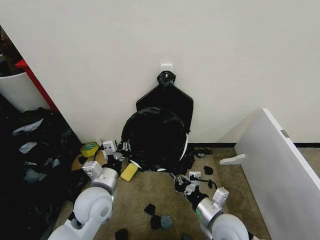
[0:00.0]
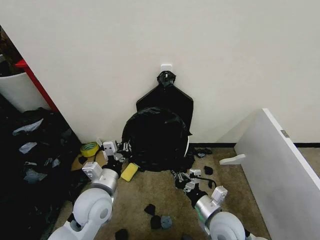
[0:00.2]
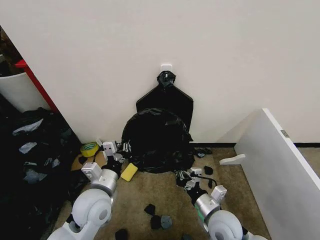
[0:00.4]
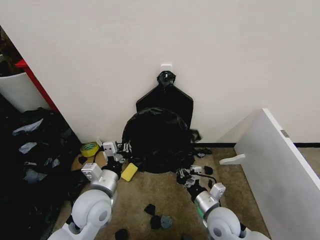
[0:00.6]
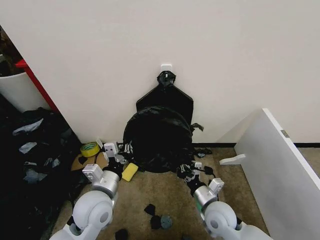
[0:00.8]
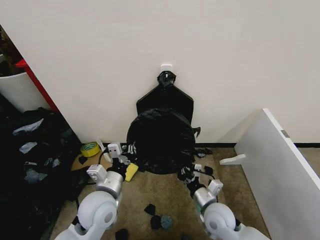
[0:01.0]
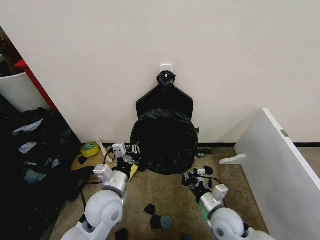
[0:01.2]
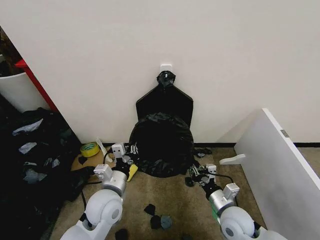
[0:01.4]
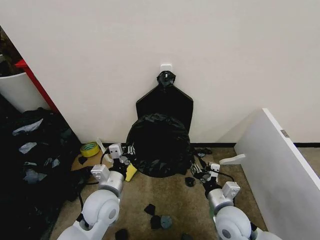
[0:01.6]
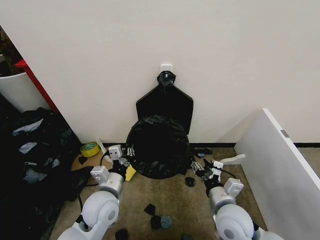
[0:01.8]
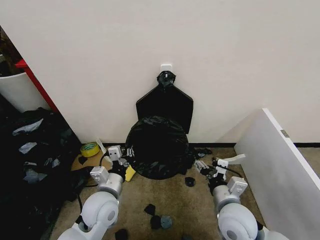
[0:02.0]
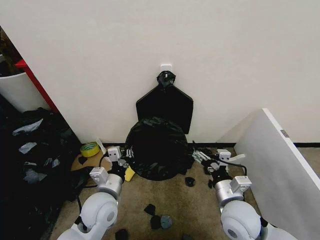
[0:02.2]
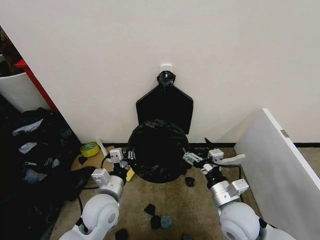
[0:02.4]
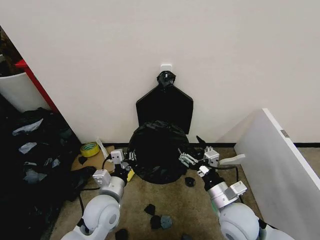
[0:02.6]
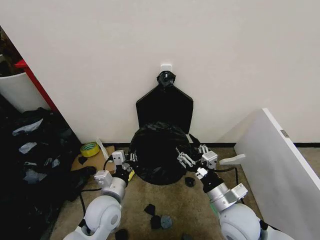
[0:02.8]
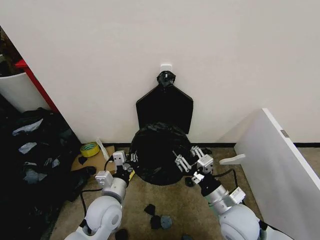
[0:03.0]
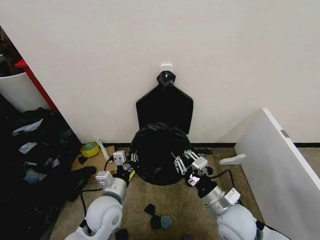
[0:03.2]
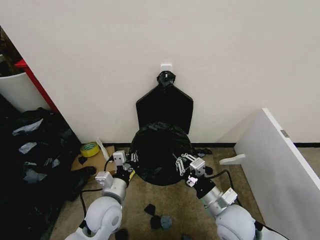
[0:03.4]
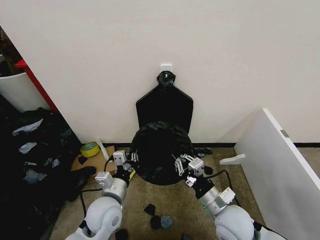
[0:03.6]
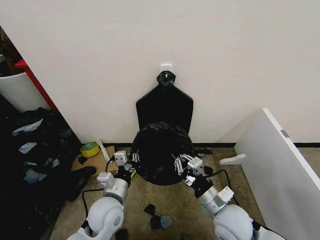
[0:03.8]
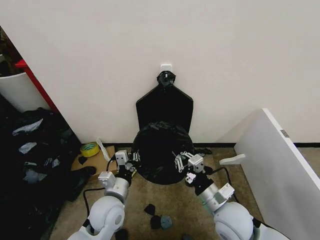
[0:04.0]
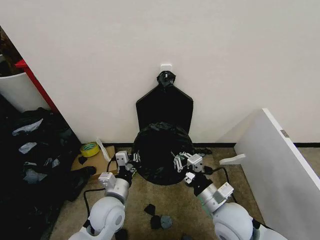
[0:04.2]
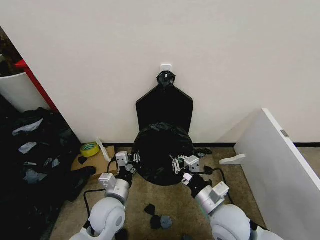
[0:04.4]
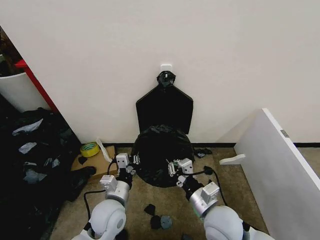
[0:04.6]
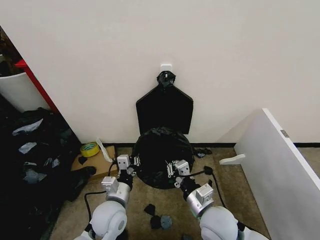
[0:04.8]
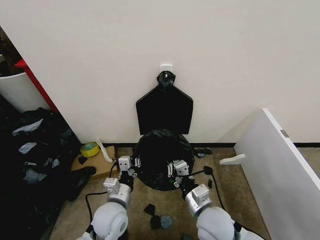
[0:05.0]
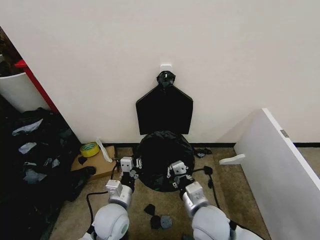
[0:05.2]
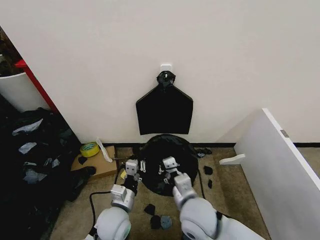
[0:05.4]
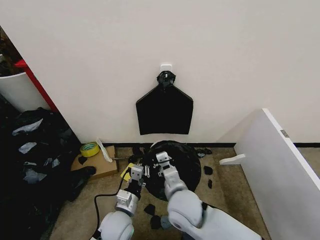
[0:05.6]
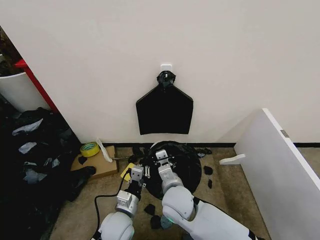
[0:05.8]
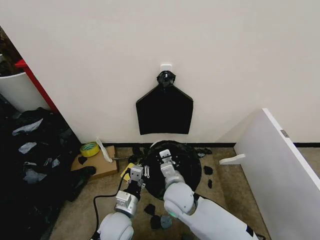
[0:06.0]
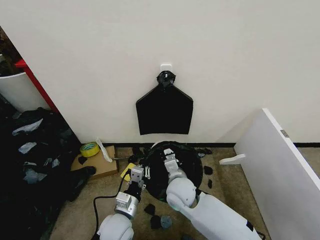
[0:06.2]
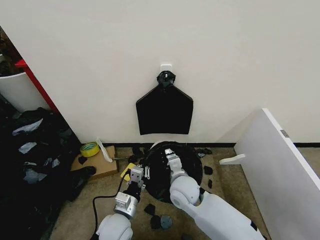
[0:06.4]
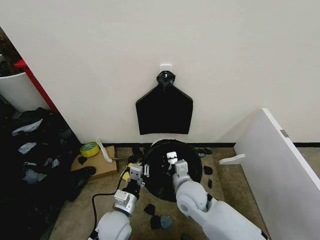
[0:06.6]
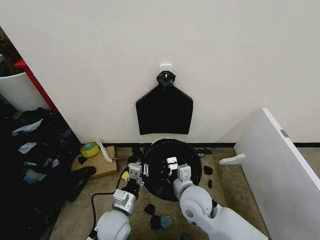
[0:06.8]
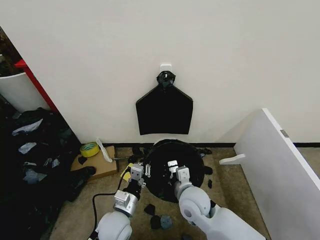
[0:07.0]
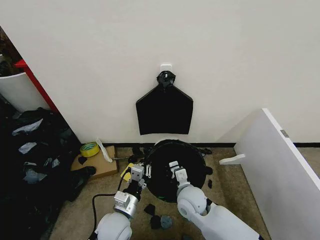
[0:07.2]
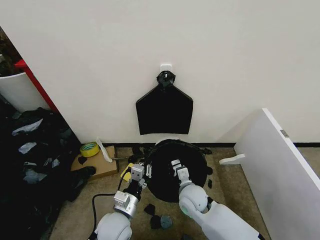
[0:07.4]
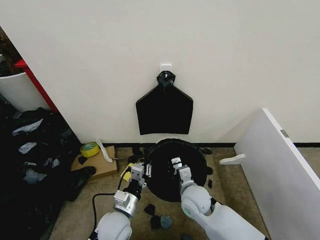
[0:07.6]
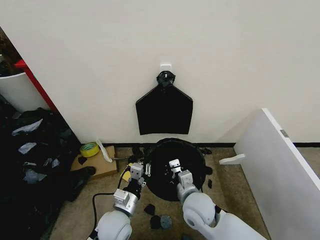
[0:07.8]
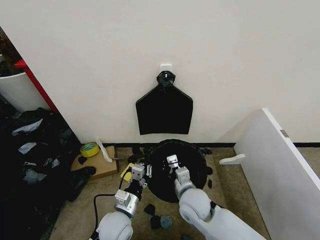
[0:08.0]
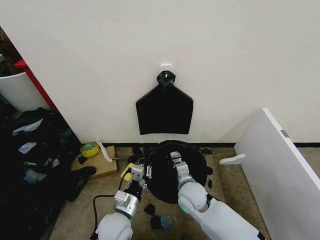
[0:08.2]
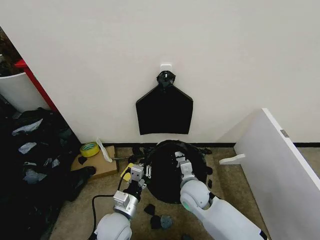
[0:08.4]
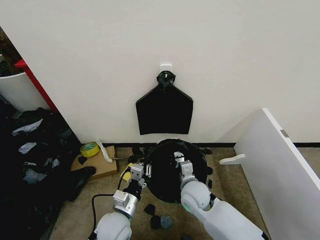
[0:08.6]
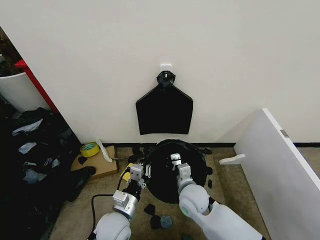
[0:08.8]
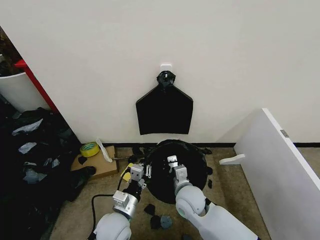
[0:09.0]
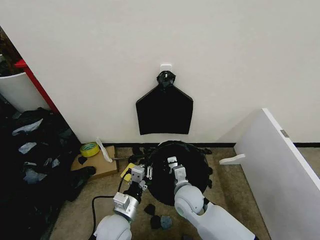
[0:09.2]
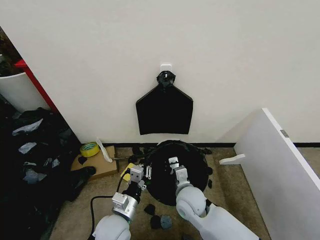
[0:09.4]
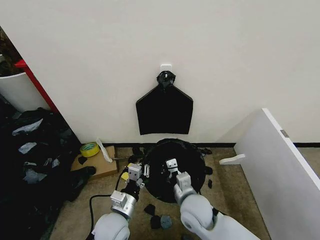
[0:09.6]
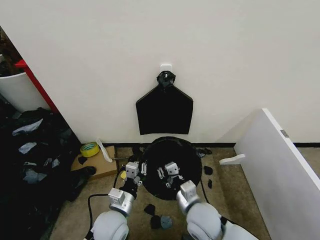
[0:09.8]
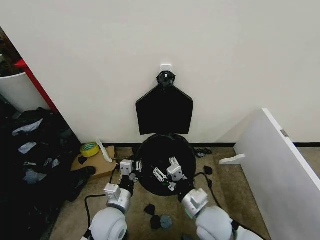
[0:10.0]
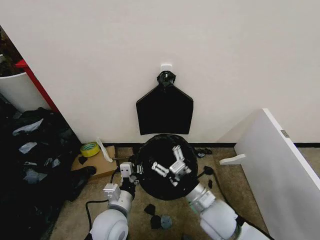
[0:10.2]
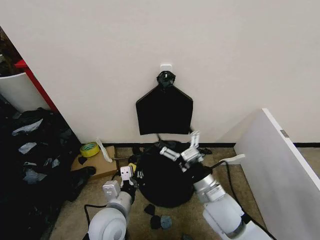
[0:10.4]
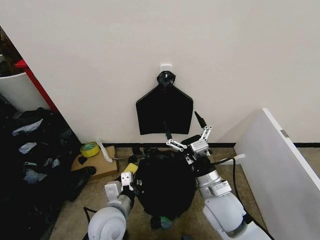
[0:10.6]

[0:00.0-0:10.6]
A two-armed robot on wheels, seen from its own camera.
Task of the whole recording: Place the garbage bag over the trash bin.
0:00.0 to 0:01.6: The right gripper opens up.
0:01.6 to 0:03.0: The right gripper goes roughly 5 cm upward, and opens and closes again.
0:03.0 to 0:04.6: The right gripper closes its fingers.
0:04.6 to 0:06.0: The left gripper ends up roughly 5 cm from where it was. The right gripper moves to the left and forward, roughly 15 cm.
0:06.0 to 0:07.6: The right gripper moves to the right, approximately 5 cm.
0:07.6 to 0:09.0: The grippers move only a little.
0:09.0 to 0:10.6: The right gripper moves upward, to the right and backward, approximately 10 cm, and opens its fingers. Meanwhile the left gripper is displaced upward by approximately 5 cm.

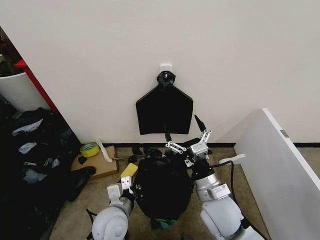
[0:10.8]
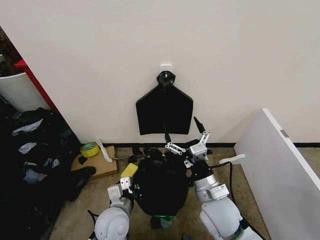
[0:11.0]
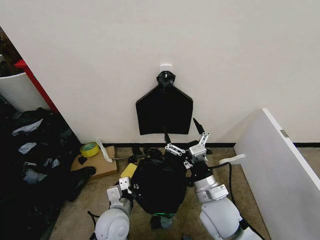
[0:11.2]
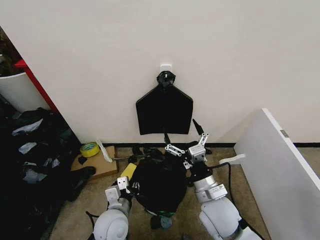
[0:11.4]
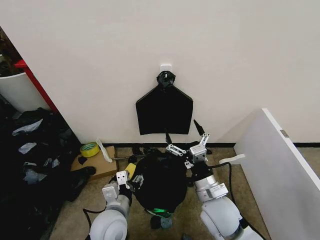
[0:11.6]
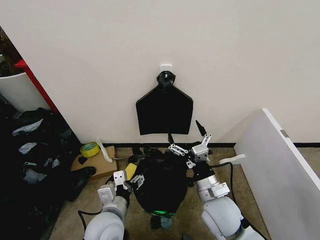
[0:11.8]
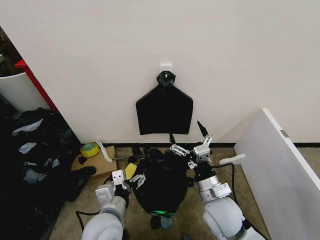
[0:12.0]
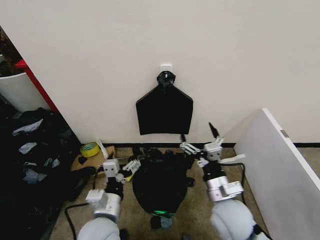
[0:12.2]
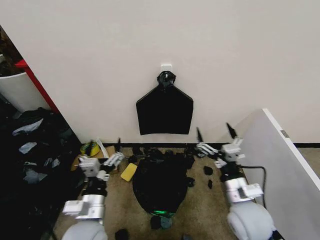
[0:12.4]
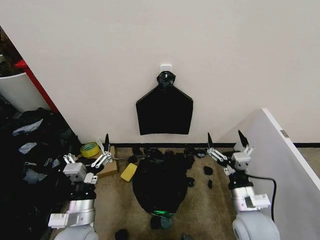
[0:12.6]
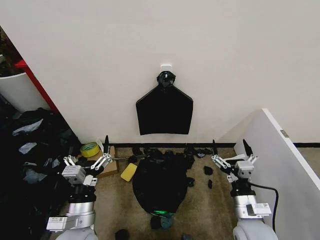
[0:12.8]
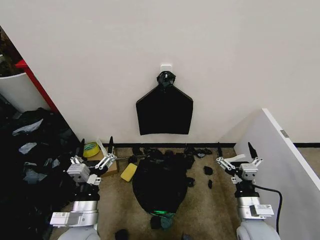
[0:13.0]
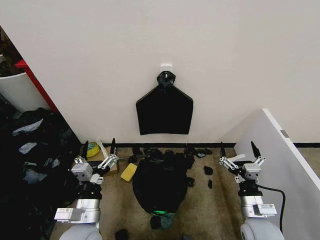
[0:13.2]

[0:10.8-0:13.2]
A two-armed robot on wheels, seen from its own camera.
Task of the whole recording: Place the garbage bag over the trash bin.
0:10.8 to 0:12.0: The left gripper ends up roughly 5 cm from where it was, and opens up.
0:12.0 to 0:13.2: The right gripper moves to the right and downward, approximately 15 cm; the left gripper travels to the left by about 5 cm.

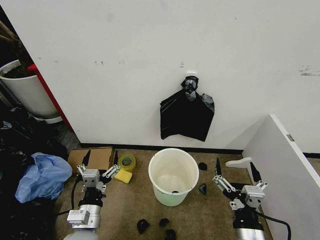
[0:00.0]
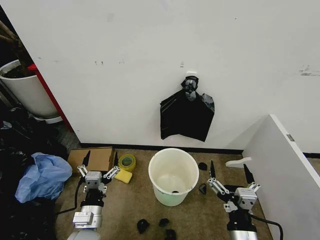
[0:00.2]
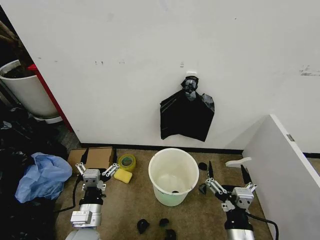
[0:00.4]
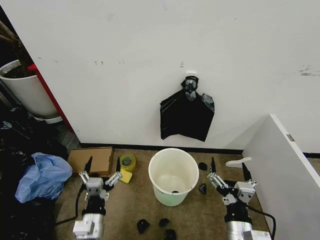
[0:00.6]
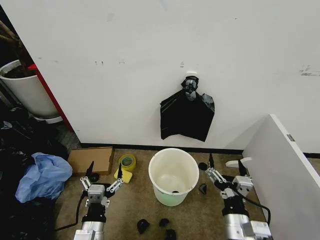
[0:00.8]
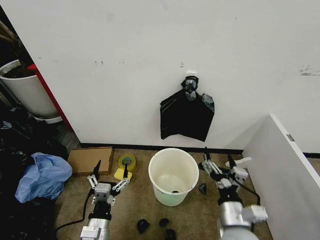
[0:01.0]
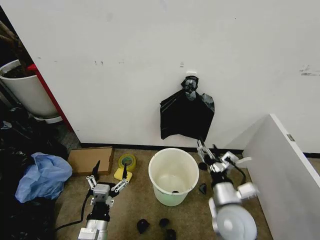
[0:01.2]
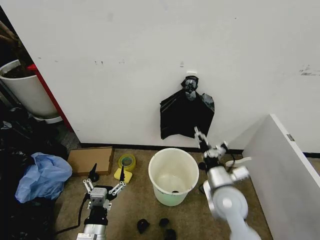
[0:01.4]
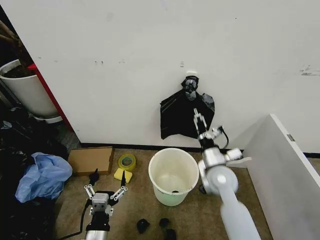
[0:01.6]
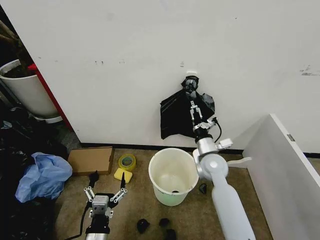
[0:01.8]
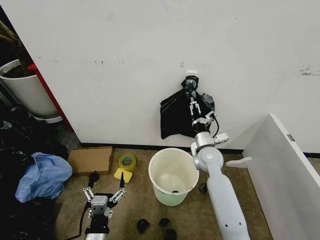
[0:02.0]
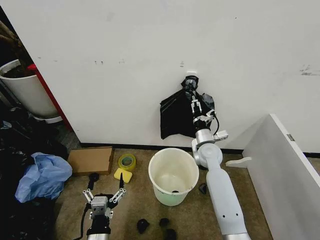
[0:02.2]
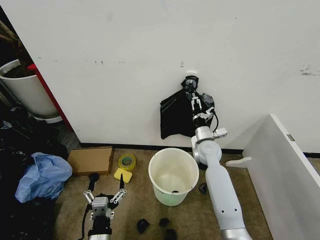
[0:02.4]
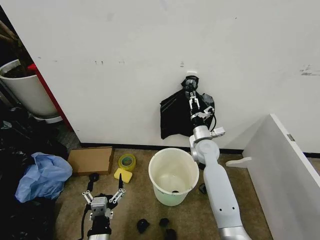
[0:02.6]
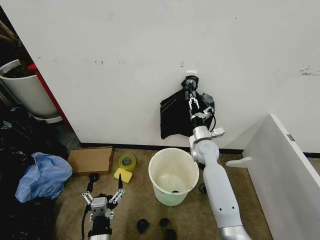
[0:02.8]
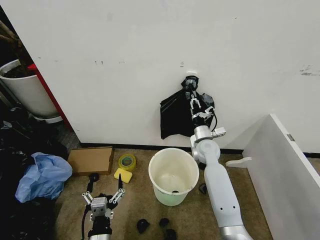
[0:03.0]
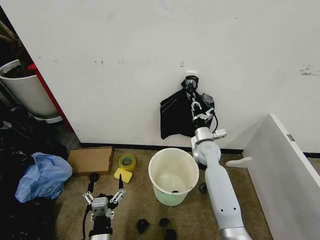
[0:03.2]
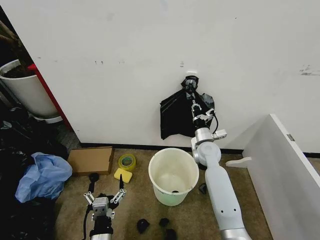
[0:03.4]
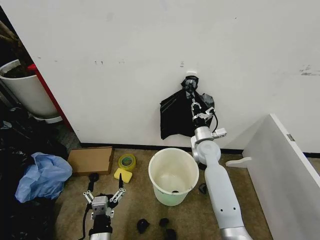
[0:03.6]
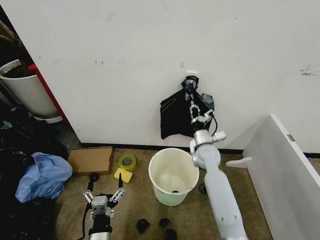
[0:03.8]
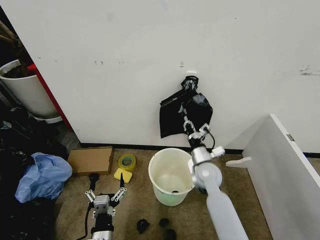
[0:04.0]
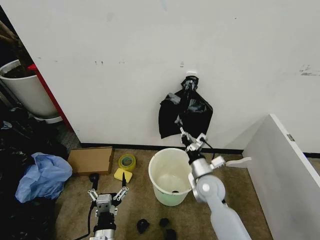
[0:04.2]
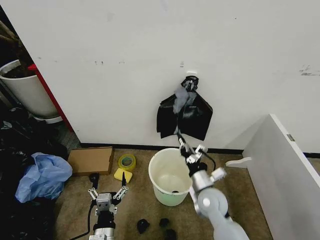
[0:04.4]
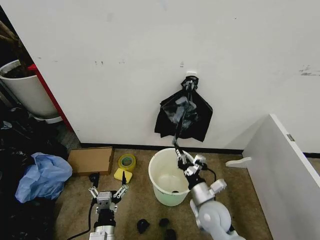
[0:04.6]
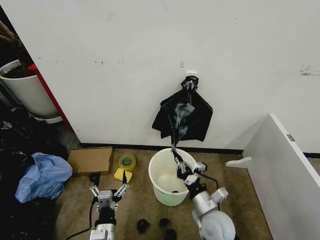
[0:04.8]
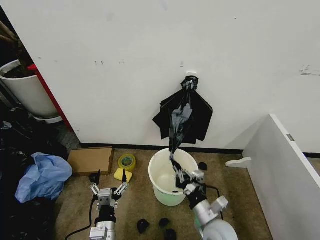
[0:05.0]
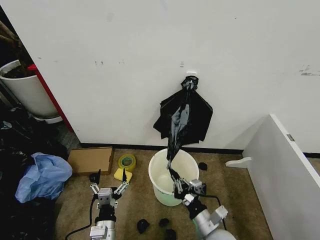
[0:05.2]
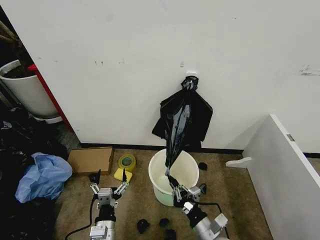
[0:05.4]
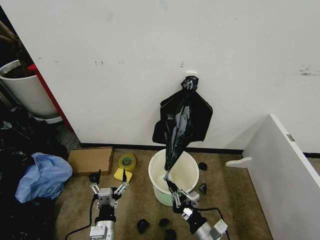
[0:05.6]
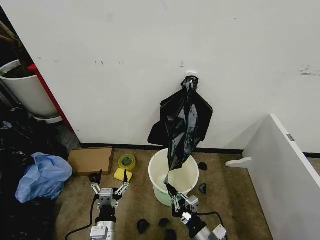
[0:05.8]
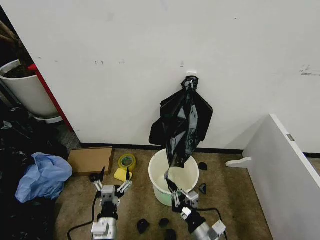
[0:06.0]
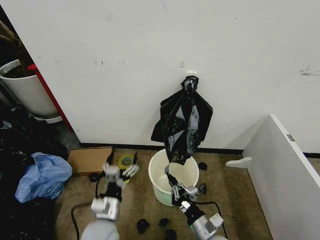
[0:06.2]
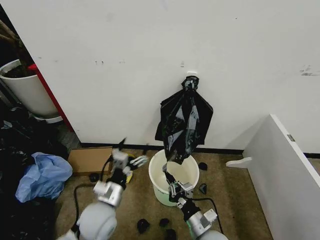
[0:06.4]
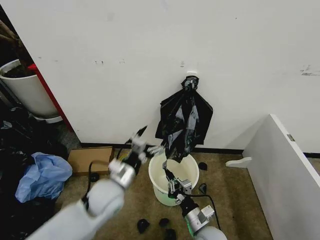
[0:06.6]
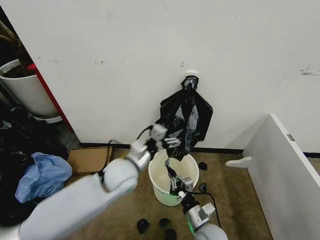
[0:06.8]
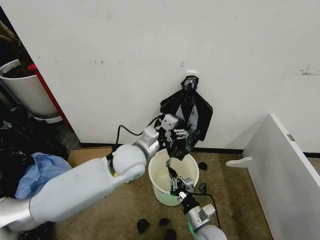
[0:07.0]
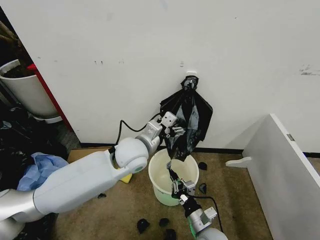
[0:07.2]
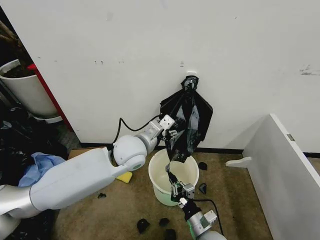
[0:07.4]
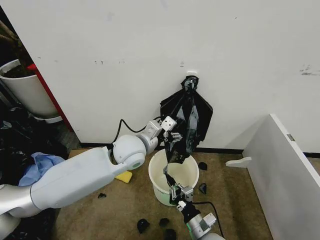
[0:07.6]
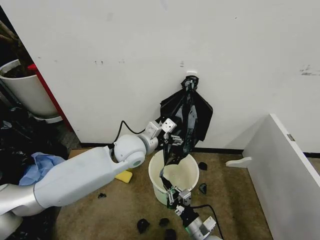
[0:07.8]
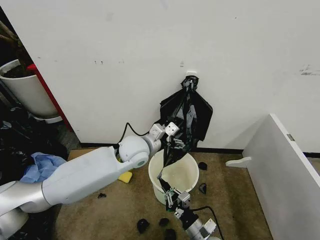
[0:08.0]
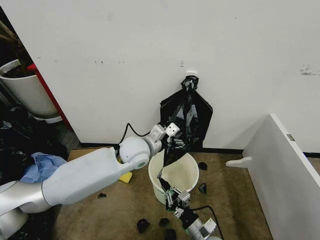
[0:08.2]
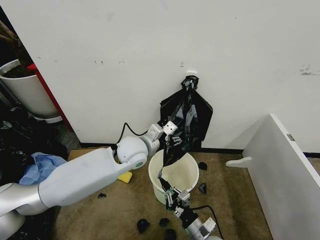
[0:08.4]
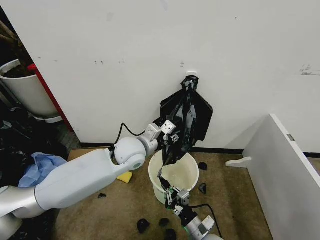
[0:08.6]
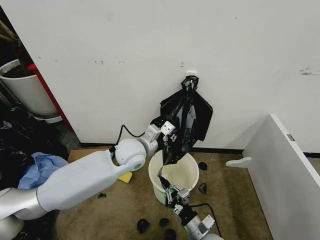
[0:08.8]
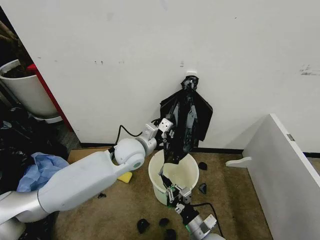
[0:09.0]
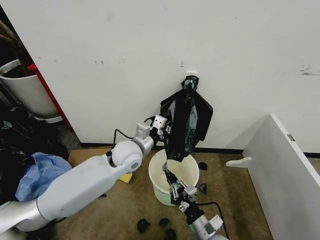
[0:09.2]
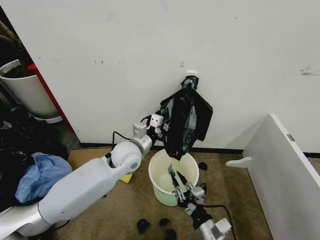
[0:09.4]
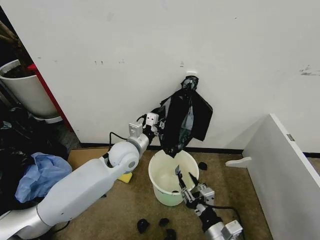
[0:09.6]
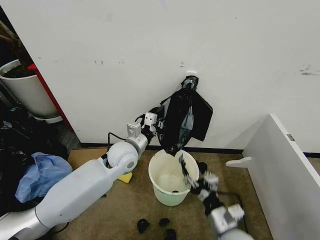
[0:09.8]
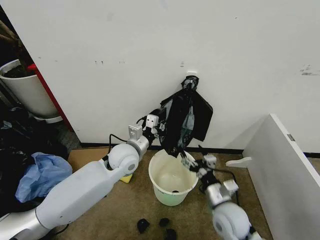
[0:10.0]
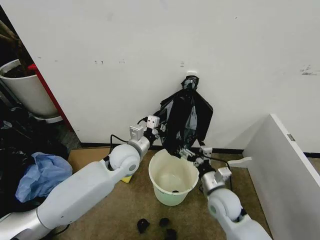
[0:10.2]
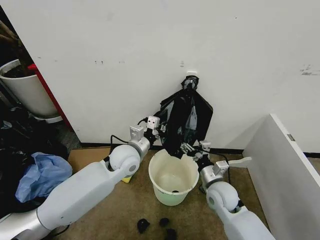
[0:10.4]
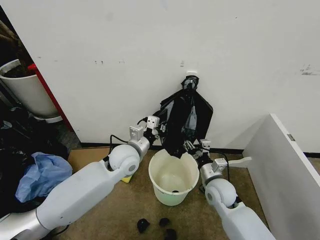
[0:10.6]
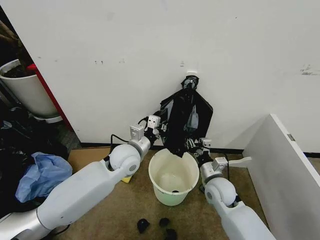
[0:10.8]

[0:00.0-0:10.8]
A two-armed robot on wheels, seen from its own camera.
Task of the whole recording: Place the garbage bag over the trash bin.
0:01.6 to 0:03.0: The right gripper moves forward, approximately 10 cm, and closes its fingers.
0:03.0 to 0:04.6: The right gripper is displaced backward by roughly 20 cm.
0:04.6 to 0:06.2: The right gripper travels backward by some 10 cm; the left gripper moves forward, some 5 cm.
0:06.2 to 0:07.8: The left gripper heads forward and upward, covering some 30 cm.
0:07.8 to 0:09.2: The left gripper closes its fingers.
0:09.2 to 0:10.8: The right gripper travels forward and upward by about 15 cm, and opens up.
